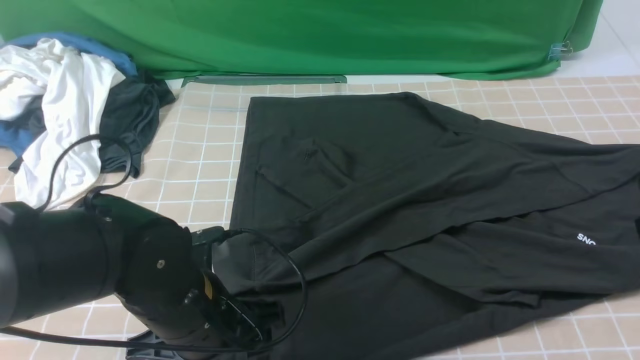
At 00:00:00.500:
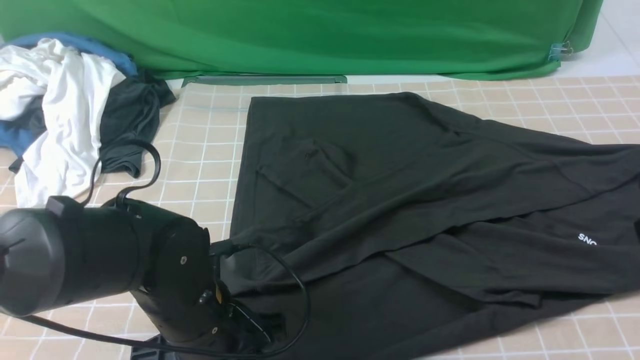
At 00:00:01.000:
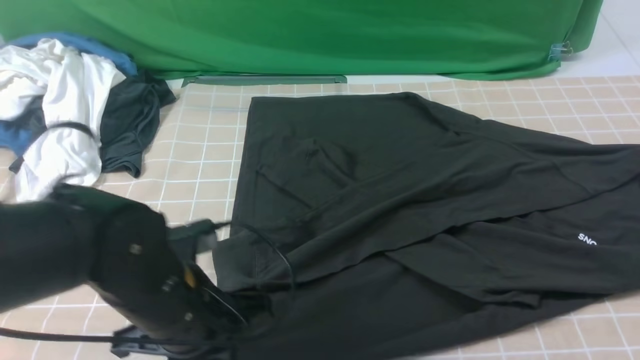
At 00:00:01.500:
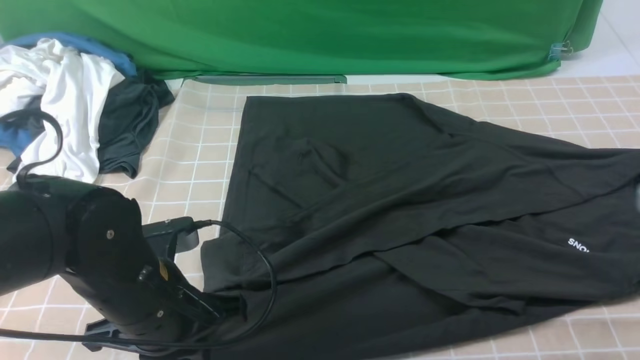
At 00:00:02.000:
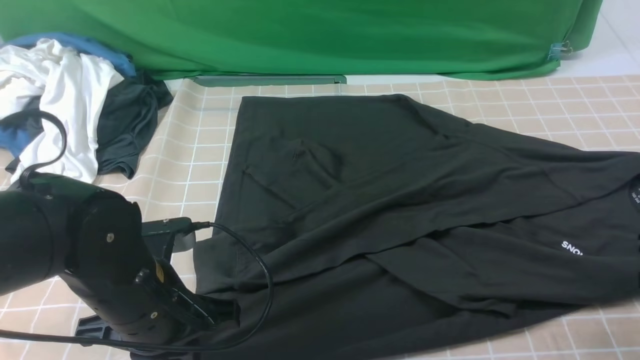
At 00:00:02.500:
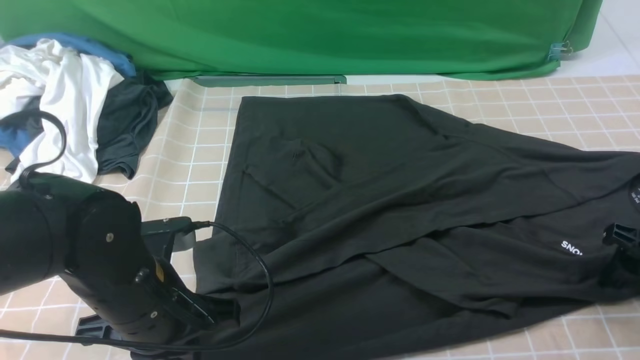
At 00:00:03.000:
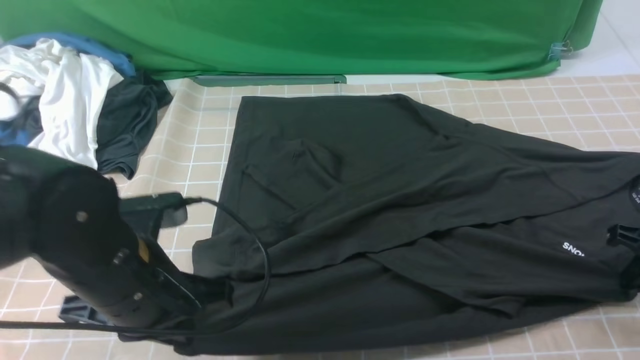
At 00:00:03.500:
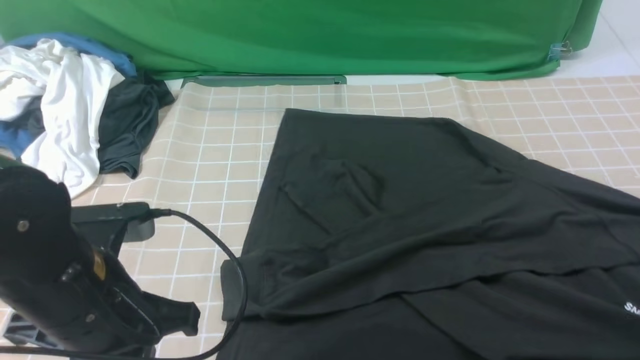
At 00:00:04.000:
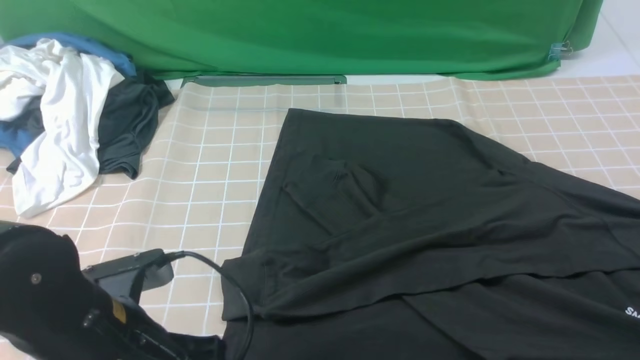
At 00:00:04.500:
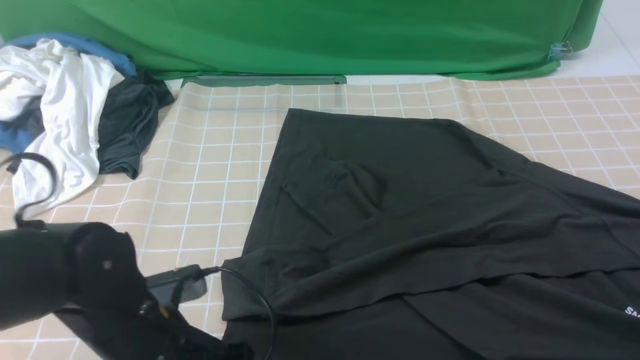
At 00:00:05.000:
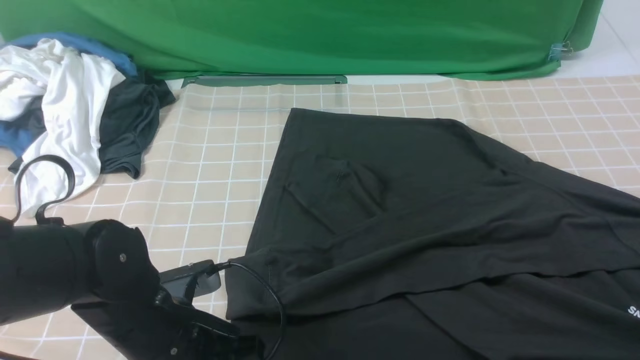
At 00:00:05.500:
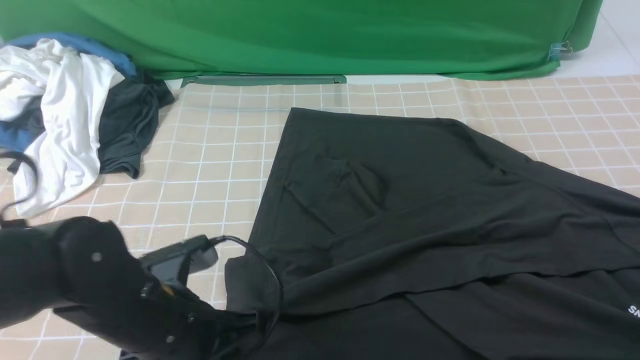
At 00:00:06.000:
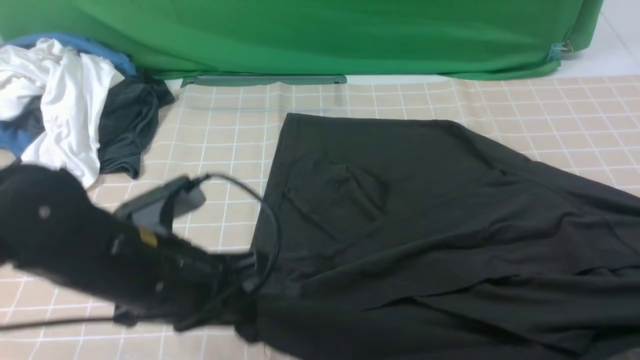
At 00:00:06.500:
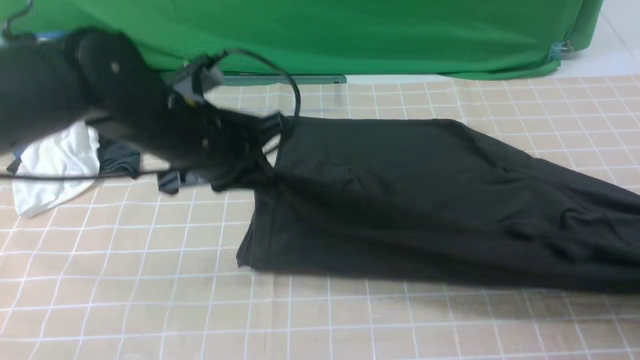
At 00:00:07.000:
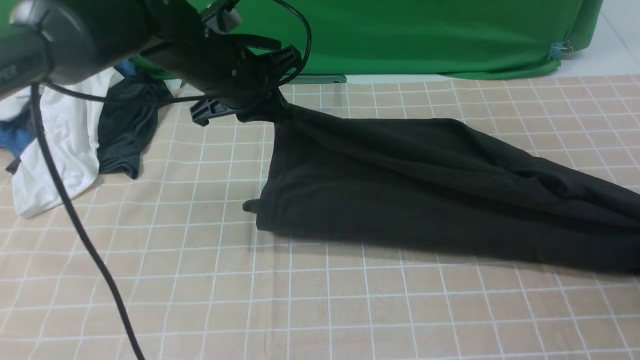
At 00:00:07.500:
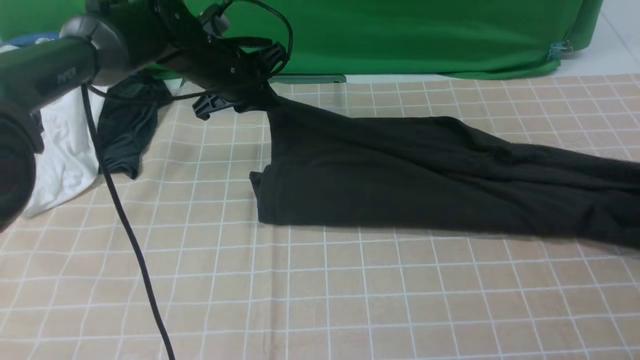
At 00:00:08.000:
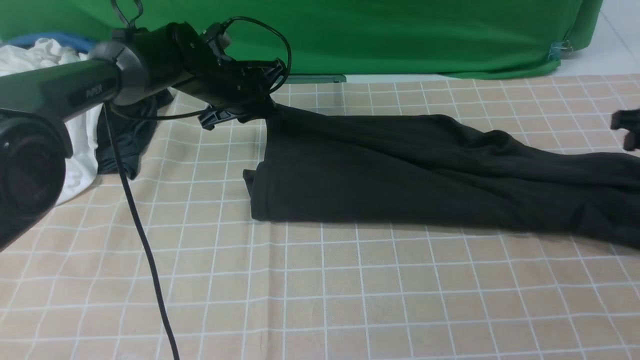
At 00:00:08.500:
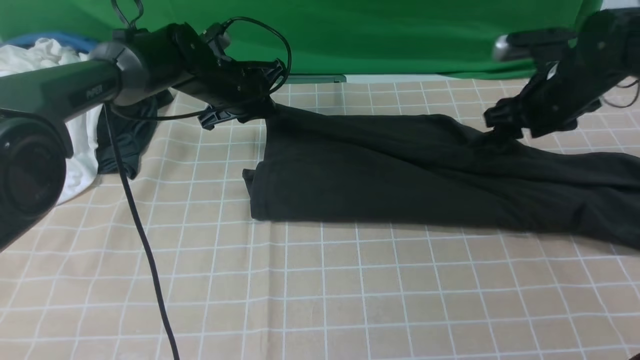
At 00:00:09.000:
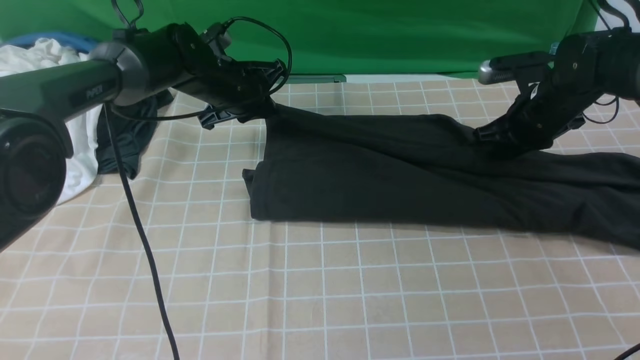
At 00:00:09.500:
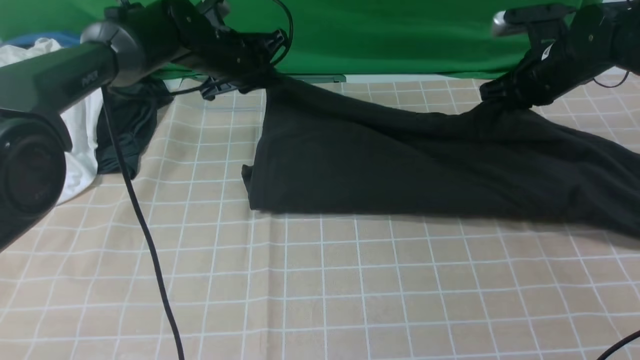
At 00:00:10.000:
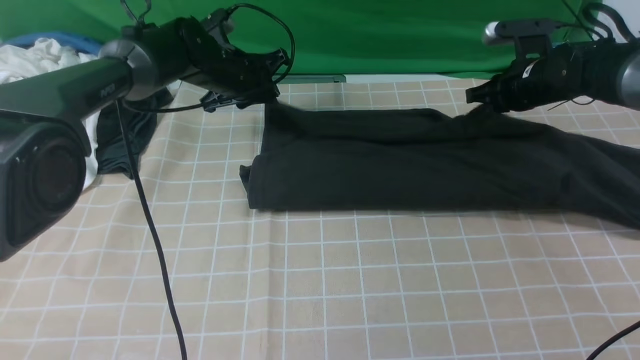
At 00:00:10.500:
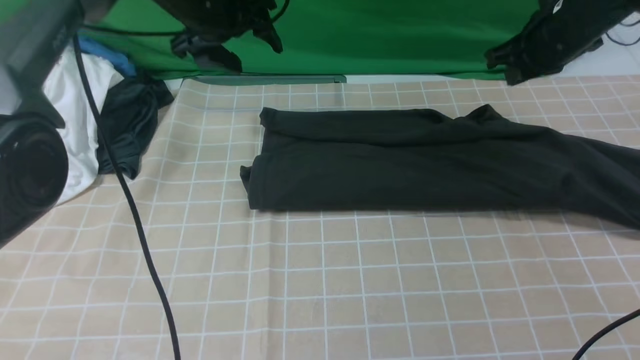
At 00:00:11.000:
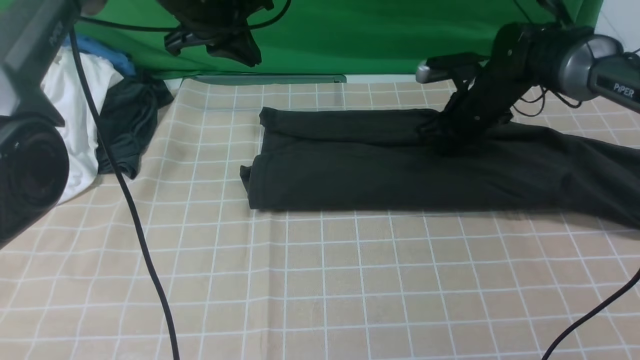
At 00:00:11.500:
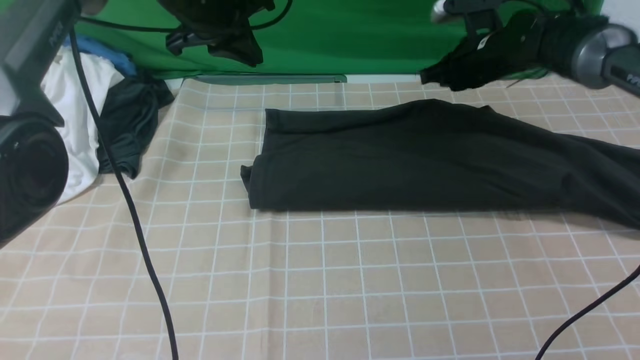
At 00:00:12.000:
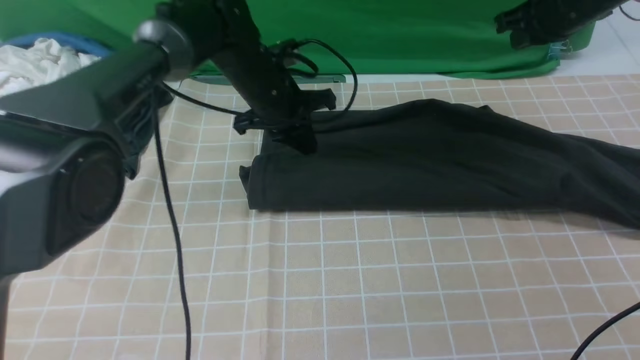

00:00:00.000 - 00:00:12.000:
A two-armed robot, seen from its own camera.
Step, 00:00:00.000 - 00:00:05.500: use both arms simultaneously to clamp the lower edge of the clothing fabric.
Step, 00:00:06.000 - 00:00:10.000: use both arms to drag the lower edge of the fabric forward and fold it over the upper edge.
00:00:00.000 - 00:00:02.000: The right gripper goes roughly 15 cm downward, to the right and forward, and opens up. The left gripper closes its fingers.
00:00:02.000 - 00:00:04.000: The left gripper opens its fingers. Meanwhile the right gripper moves backward, about 5 cm, and closes.
00:00:04.000 - 00:00:06.000: The left gripper changes place by roughly 5 cm, and closes up.
00:00:06.000 - 00:00:08.000: The right gripper shifts approximately 20 cm forward, and opens up; the left gripper goes roughly 30 cm forward.
00:00:08.000 - 00:00:10.000: The right gripper is displaced forward and to the left by roughly 15 cm, and closes, then opens again.
00:00:10.000 - 00:00:12.000: The left gripper goes upward and returns, roughly 10 cm each way, and closes up, while the right gripper swings up and down, roughly 10 cm each way, with 2 reversals, and closes.

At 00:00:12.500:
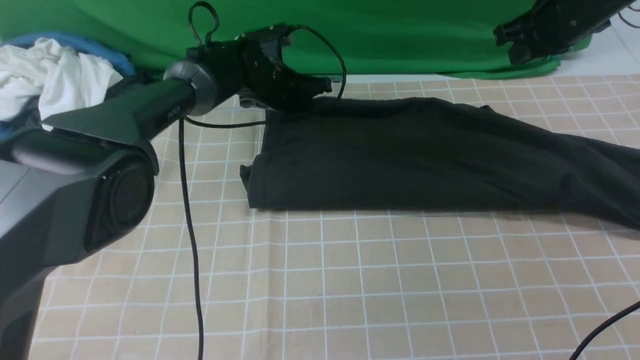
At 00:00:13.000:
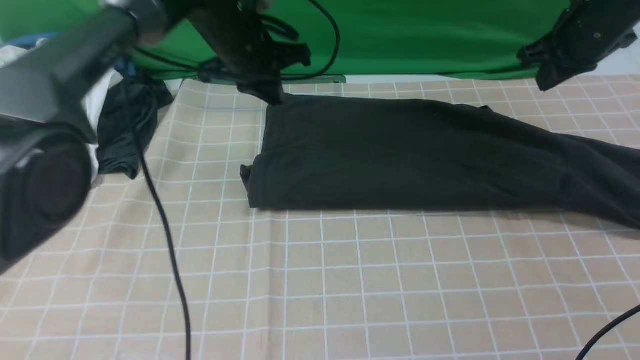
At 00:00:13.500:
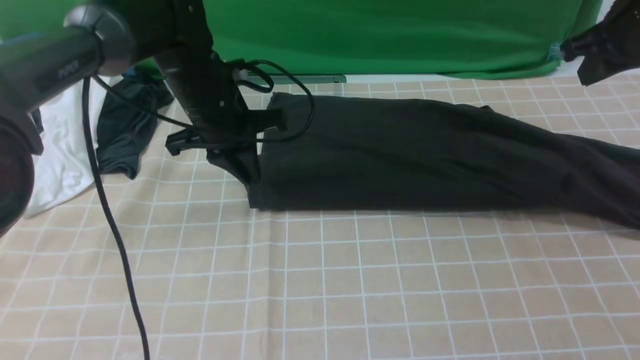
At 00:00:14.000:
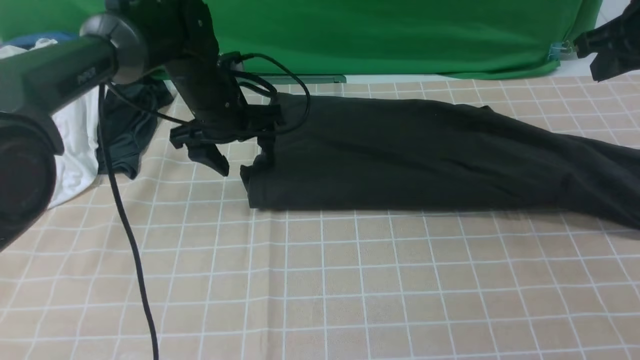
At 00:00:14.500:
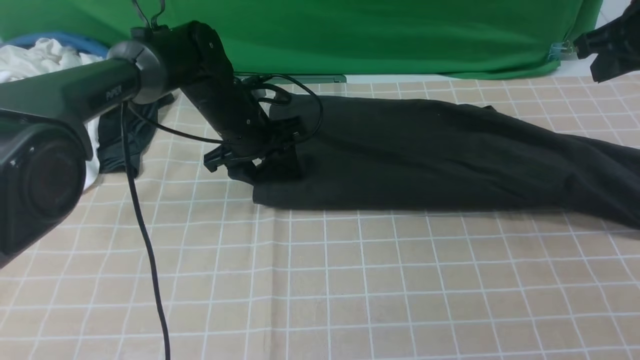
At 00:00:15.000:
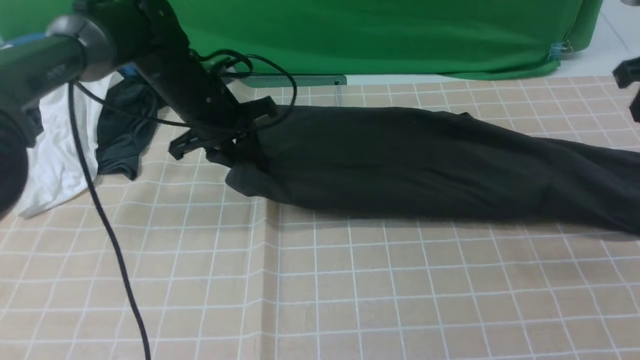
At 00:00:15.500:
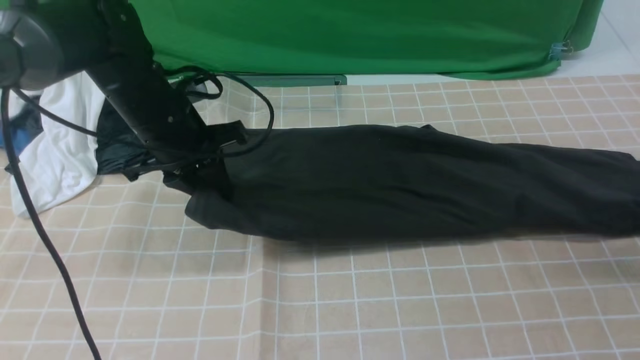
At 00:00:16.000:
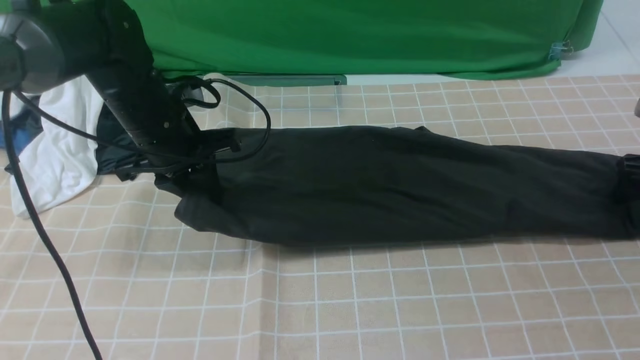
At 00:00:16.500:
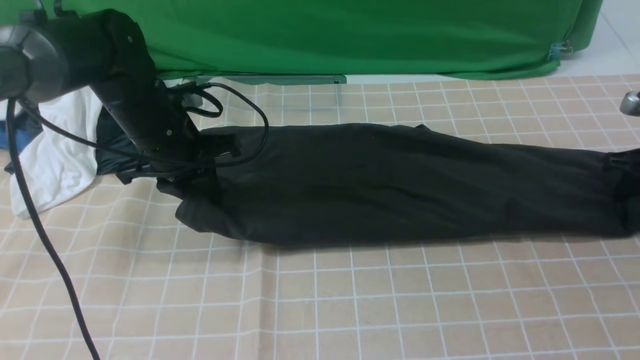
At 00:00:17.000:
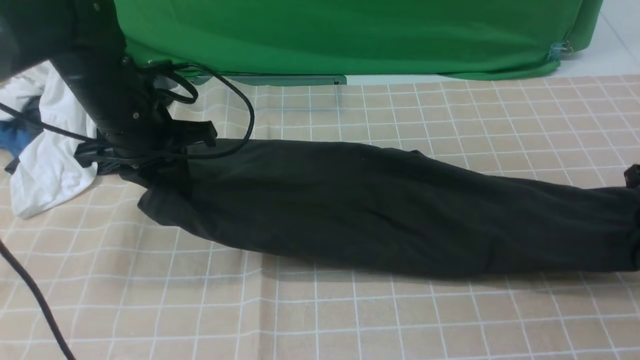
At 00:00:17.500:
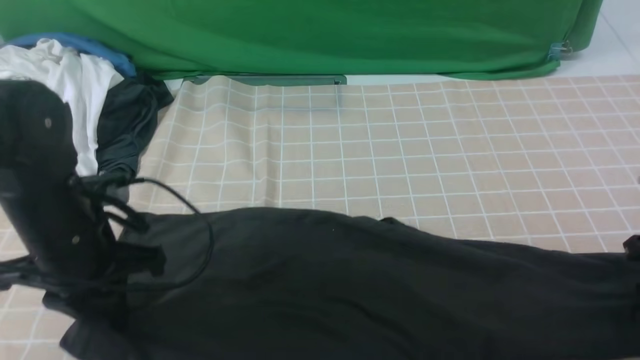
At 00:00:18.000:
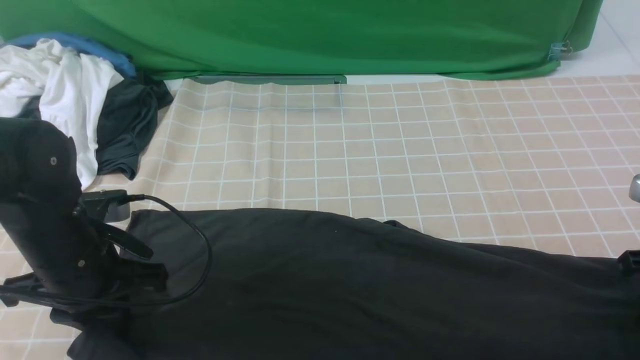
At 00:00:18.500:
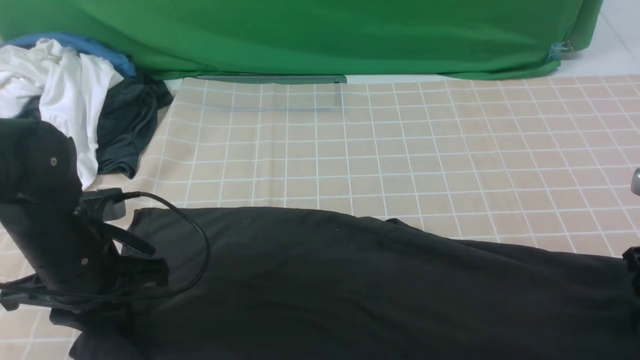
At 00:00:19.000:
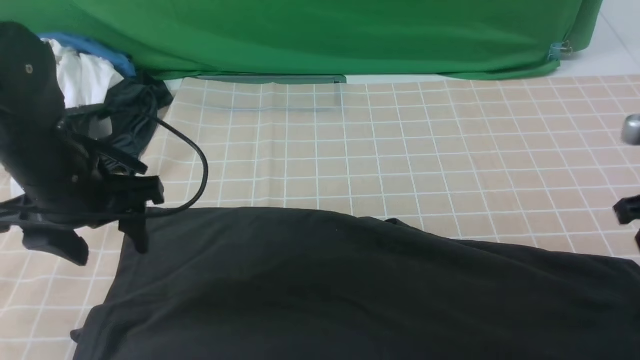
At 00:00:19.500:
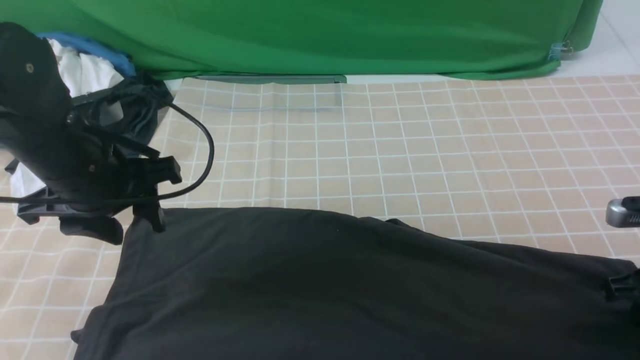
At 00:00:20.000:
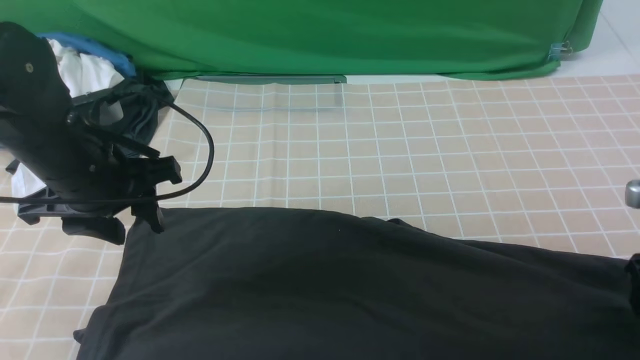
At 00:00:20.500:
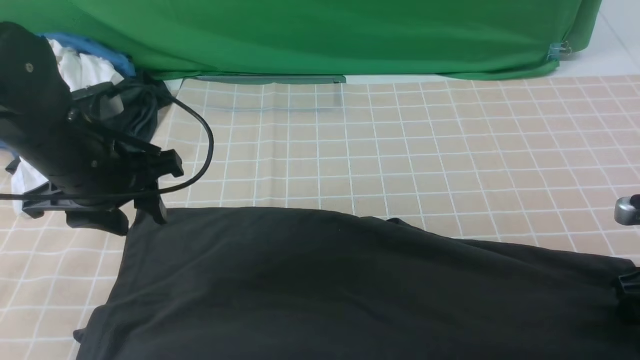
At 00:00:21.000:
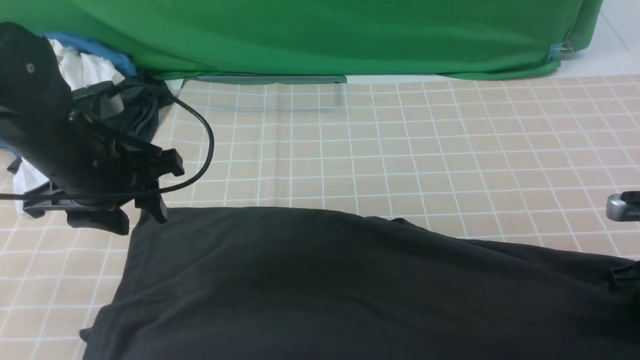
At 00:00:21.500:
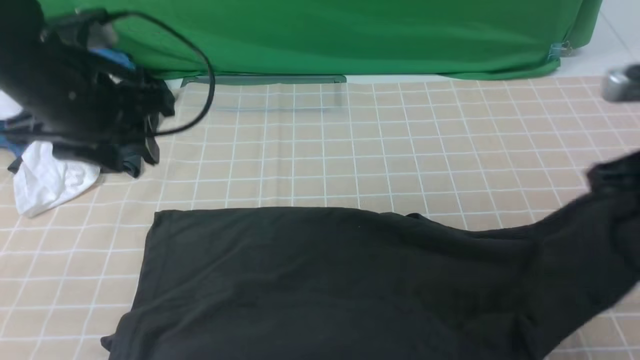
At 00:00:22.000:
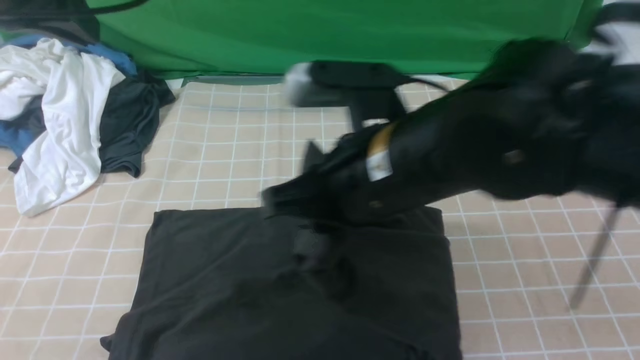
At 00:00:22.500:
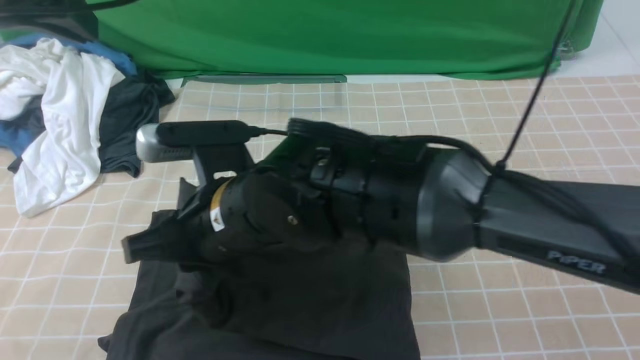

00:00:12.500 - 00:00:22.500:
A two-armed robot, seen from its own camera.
Step, 00:00:12.500 - 00:00:20.500: use the right arm to clamp the right edge of the fabric.
00:00:12.500 - 00:00:14.500: Both grippers move backward, some 10 cm. The left gripper opens its fingers.
00:00:14.500 - 00:00:16.500: The right gripper goes about 20 cm downward and to the right, and opens, then closes again, while the left gripper goes some 10 cm to the left and backward, and closes its fingers.
00:00:16.500 - 00:00:18.500: The left gripper shifts some 15 cm backward. Meanwhile the right gripper moves backward and to the left, about 15 cm, and opens up.
00:00:18.500 - 00:00:20.500: The right gripper closes, then reopens; the left gripper goes roughly 5 cm upward.
00:00:20.500 - 00:00:22.500: The right gripper goes roughly 40 cm to the left, and closes; the left gripper is displaced upward by roughly 15 cm, and closes up.
